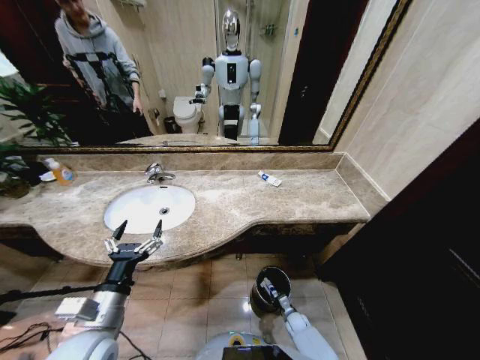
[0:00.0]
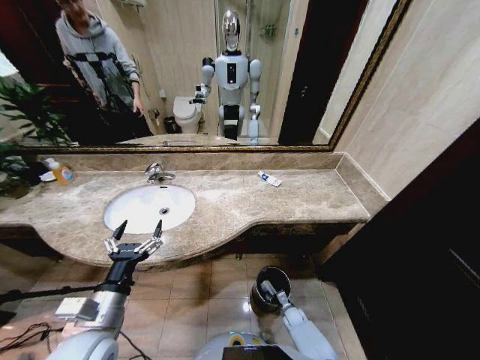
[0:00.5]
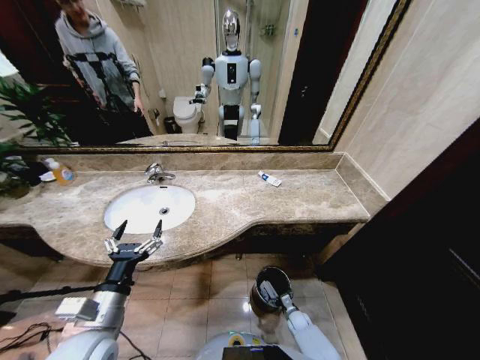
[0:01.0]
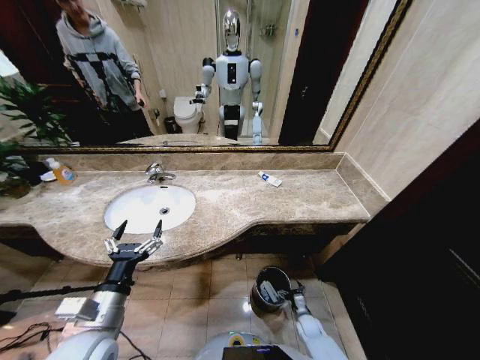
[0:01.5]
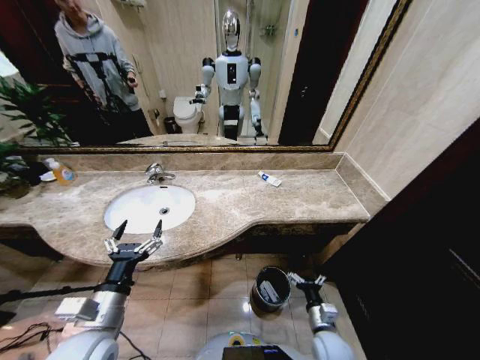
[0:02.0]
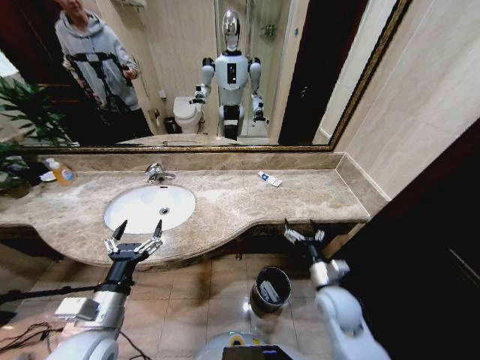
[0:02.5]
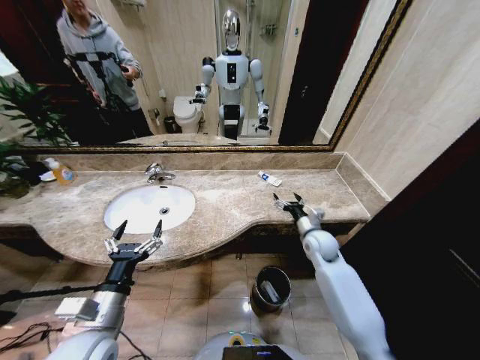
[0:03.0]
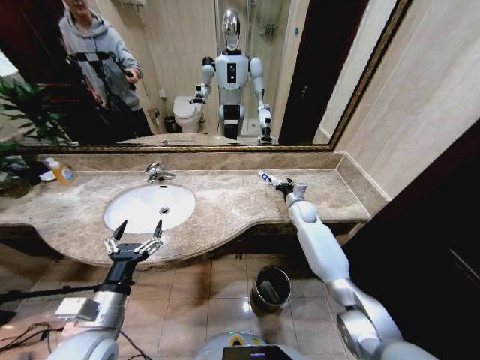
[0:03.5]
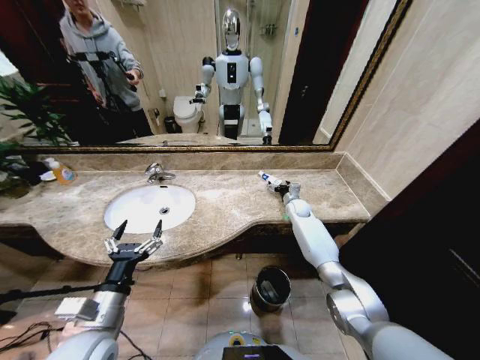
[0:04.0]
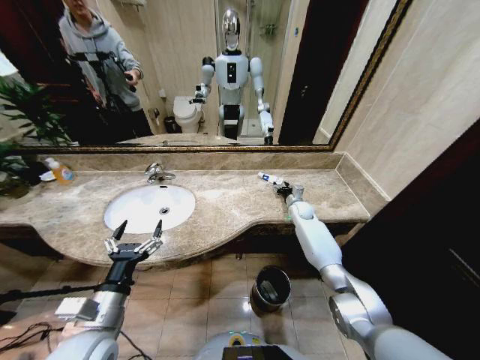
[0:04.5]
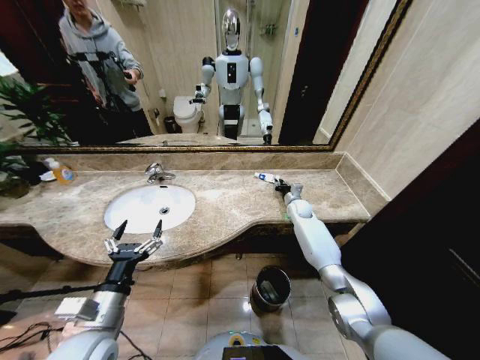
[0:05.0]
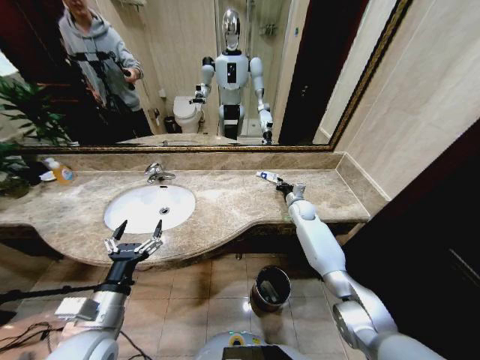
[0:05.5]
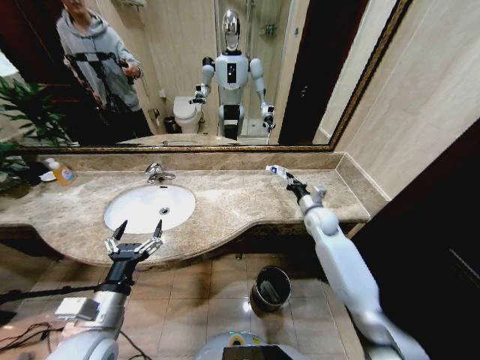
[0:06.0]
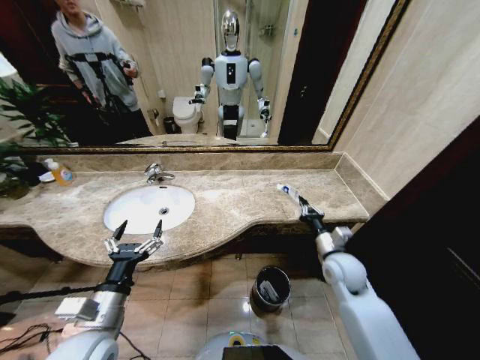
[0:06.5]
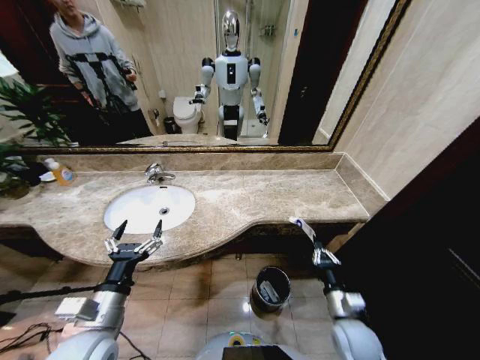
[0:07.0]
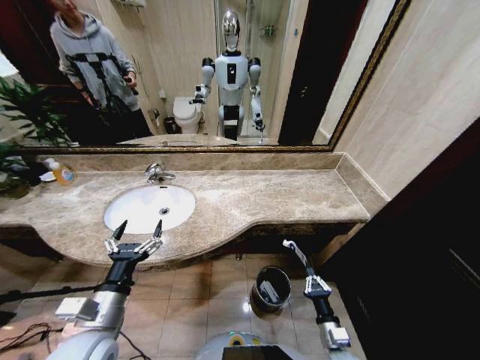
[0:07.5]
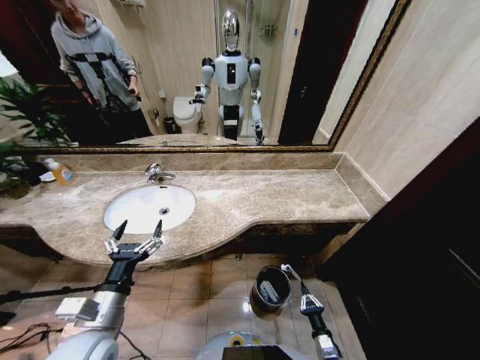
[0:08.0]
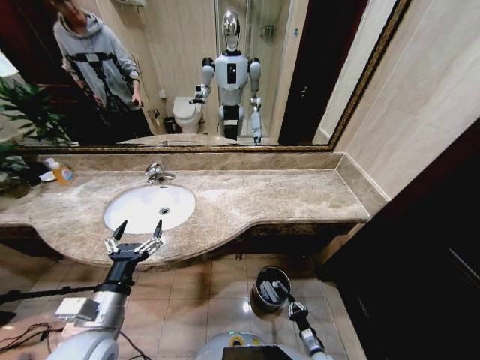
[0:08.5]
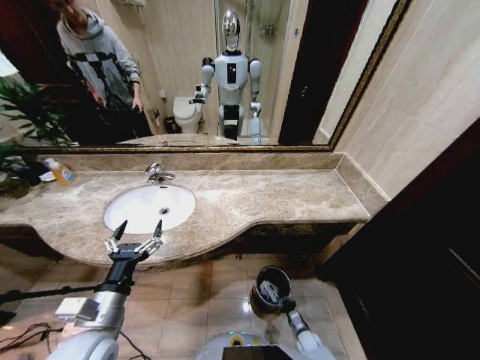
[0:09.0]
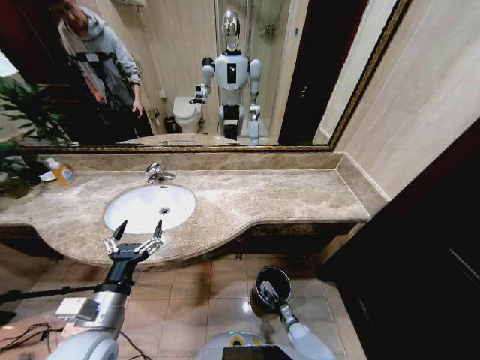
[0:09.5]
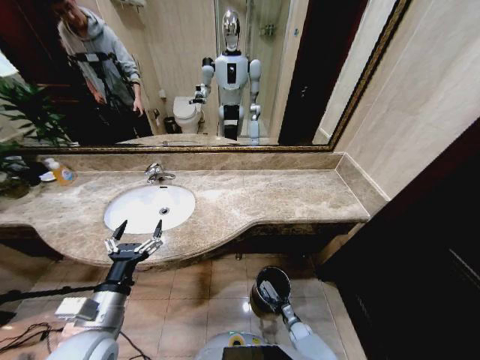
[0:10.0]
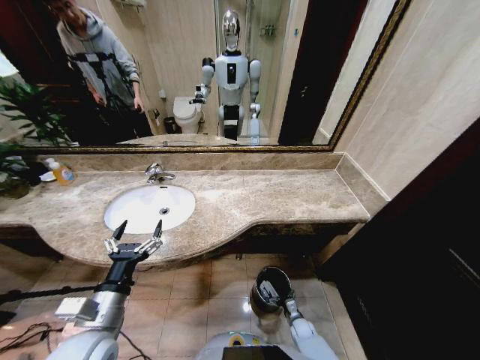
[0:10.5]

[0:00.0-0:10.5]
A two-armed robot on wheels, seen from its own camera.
Task of the whole recording: Pick up the trash from the sink and place it in the trash bin.
0:00.0 to 0:02.0: The right gripper travels upward by approximately 25 cm, and opens its fingers.
0:02.0 to 0:04.0: The right gripper travels forward by approximately 40 cm.
0:04.0 to 0:06.5: The right gripper heads backward, covering about 30 cm, and closes its fingers.
0:06.5 to 0:08.5: The right gripper shifts some 40 cm downward and backward.
0:08.5 to 0:10.5: The right gripper travels forward by about 10 cm, and opens up.

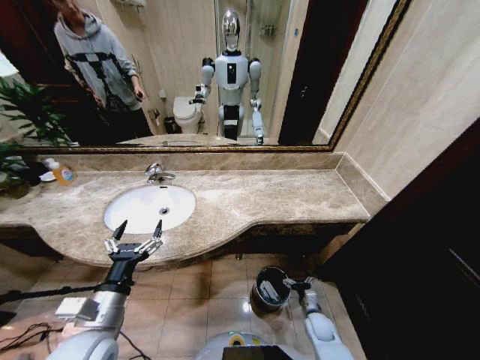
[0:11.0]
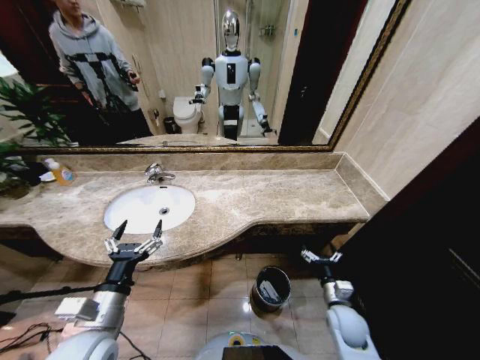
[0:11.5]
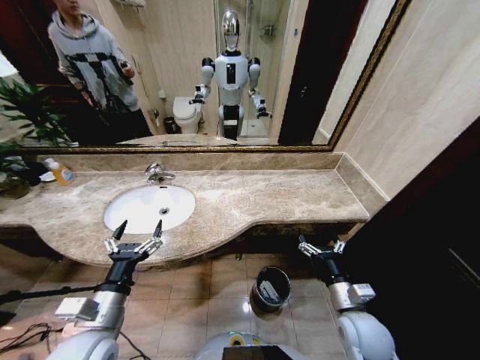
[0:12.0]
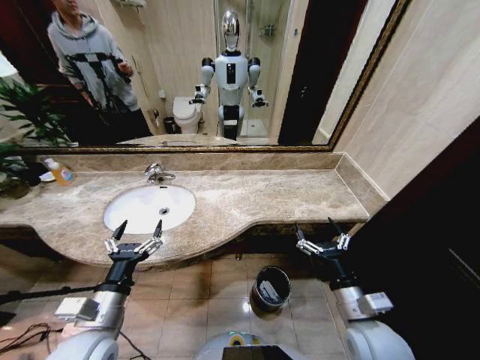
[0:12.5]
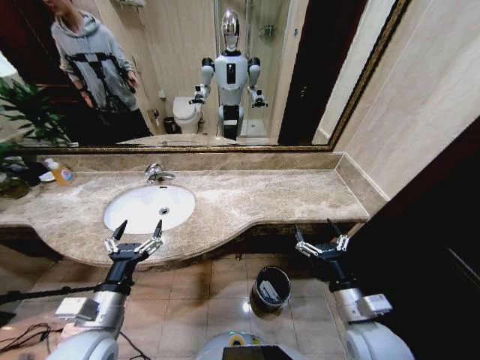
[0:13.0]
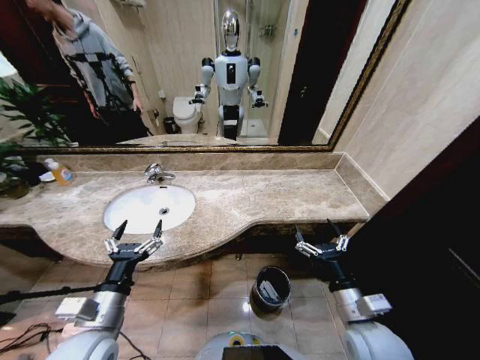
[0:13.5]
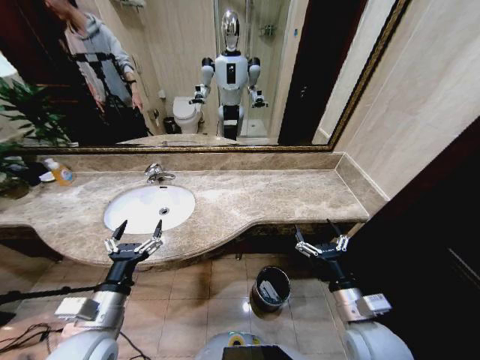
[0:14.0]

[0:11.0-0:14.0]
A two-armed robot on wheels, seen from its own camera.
Task of the whole recording: Pick up the trash from the sink and place it in the trash bin.
0:11.0 to 0:12.5: The right gripper shifts approximately 30 cm upward.
0:12.5 to 0:14.0: Neither gripper changes place.

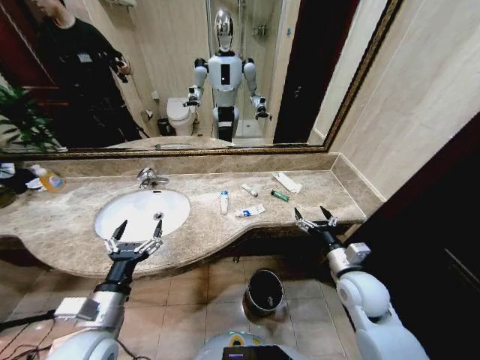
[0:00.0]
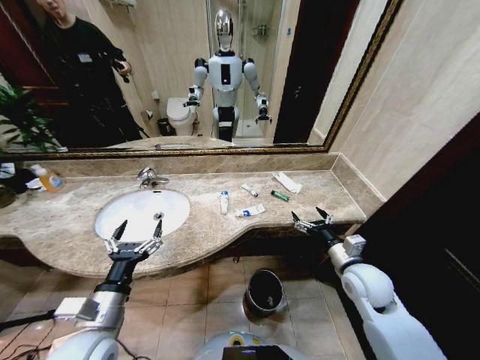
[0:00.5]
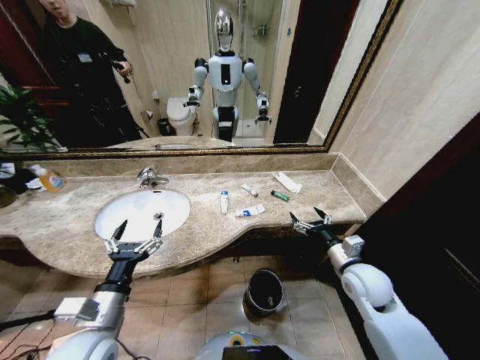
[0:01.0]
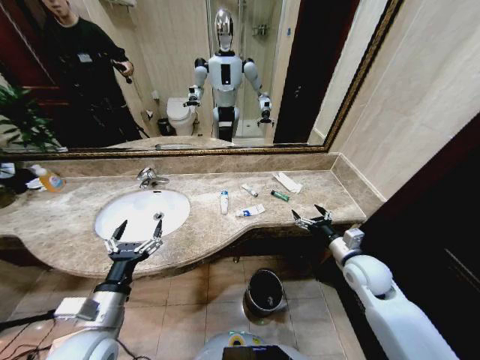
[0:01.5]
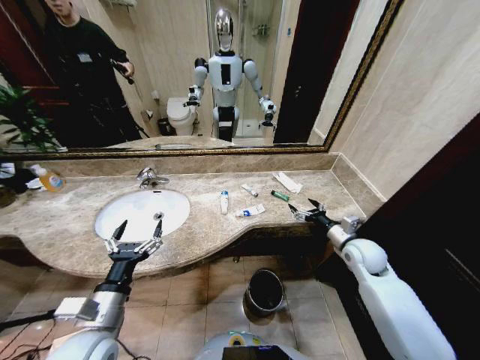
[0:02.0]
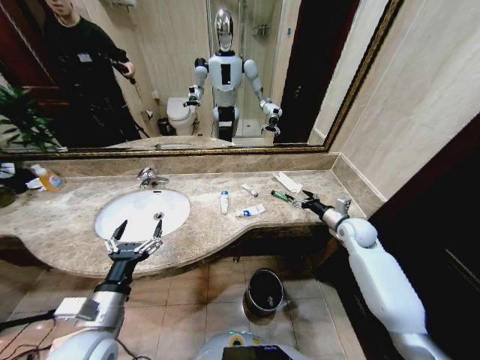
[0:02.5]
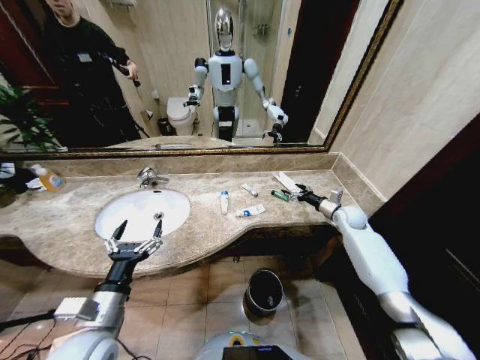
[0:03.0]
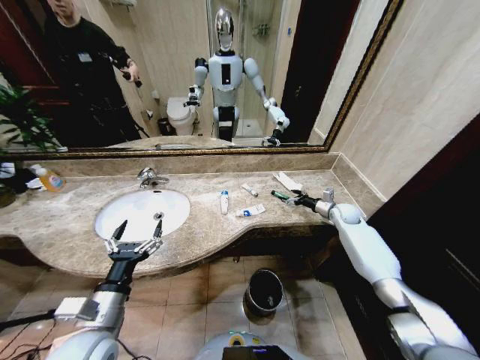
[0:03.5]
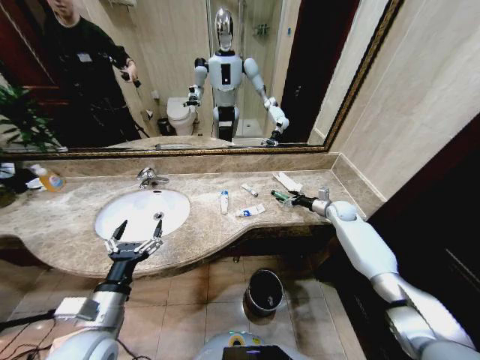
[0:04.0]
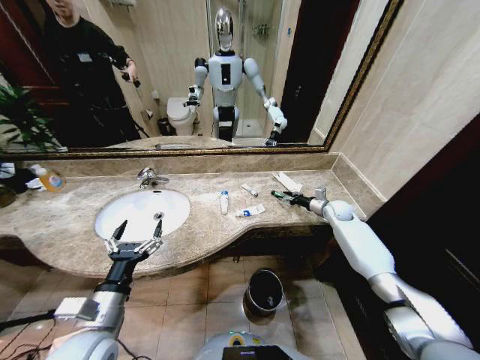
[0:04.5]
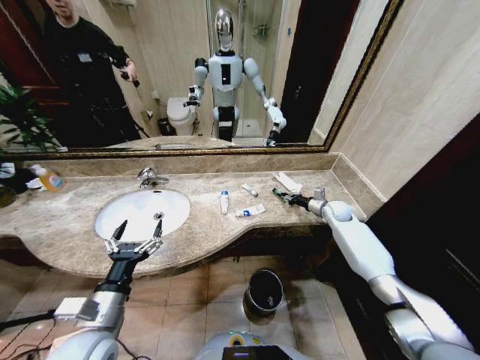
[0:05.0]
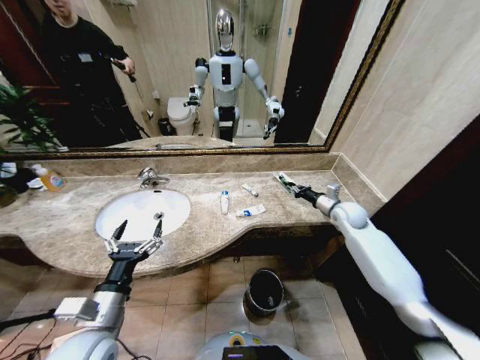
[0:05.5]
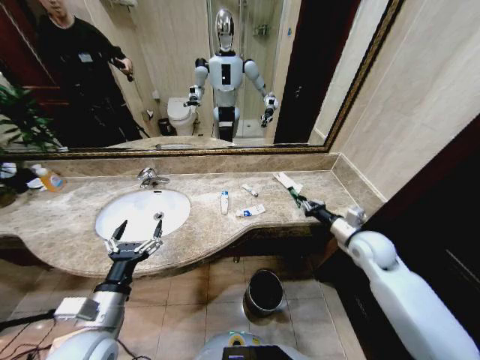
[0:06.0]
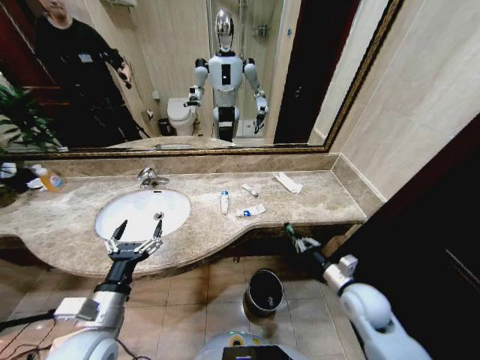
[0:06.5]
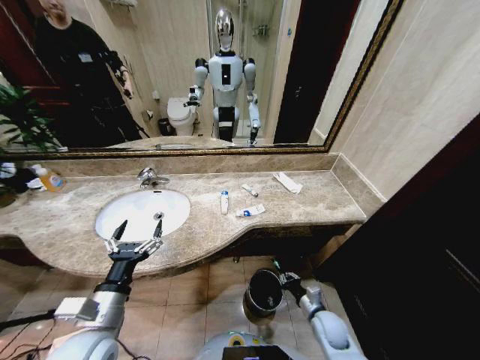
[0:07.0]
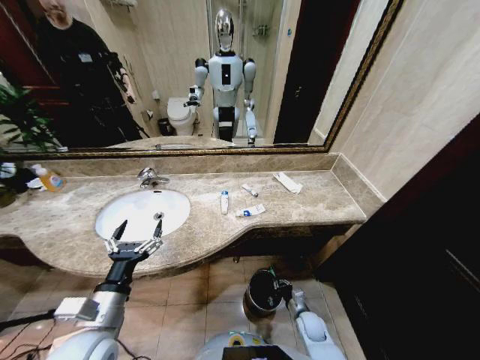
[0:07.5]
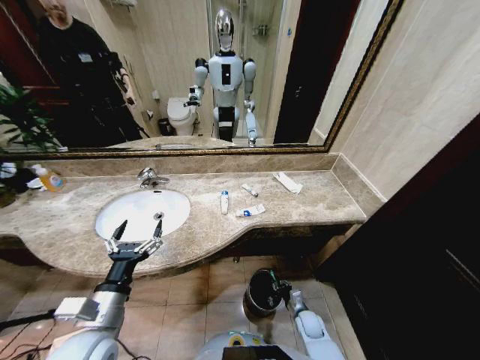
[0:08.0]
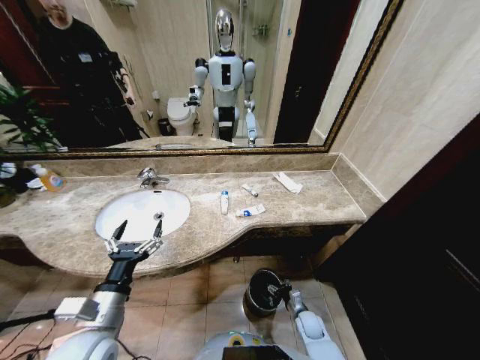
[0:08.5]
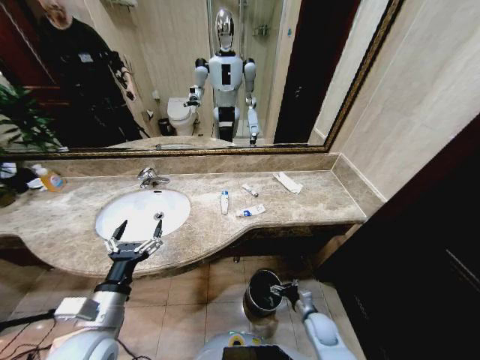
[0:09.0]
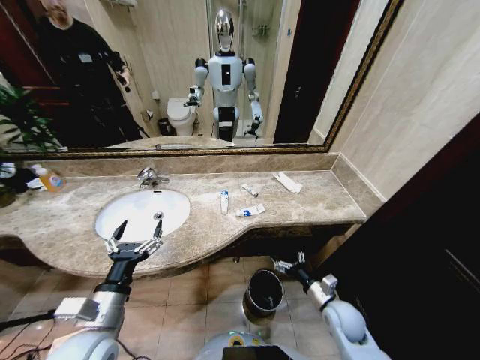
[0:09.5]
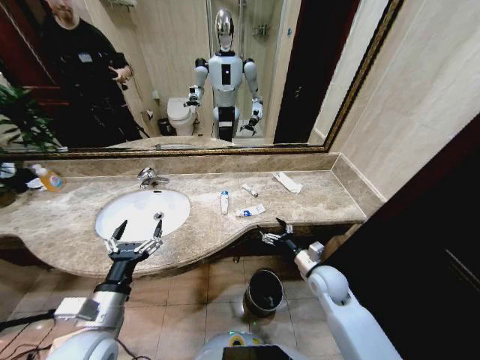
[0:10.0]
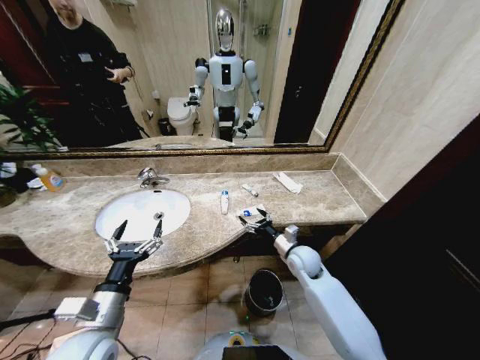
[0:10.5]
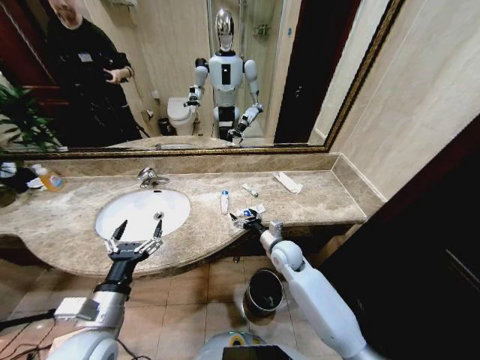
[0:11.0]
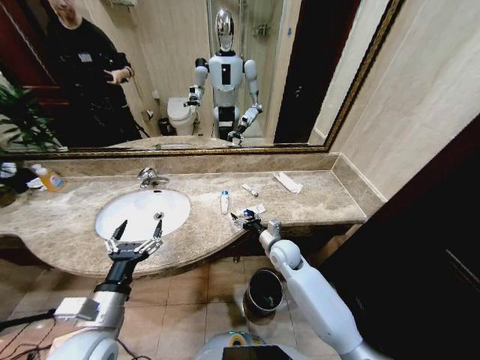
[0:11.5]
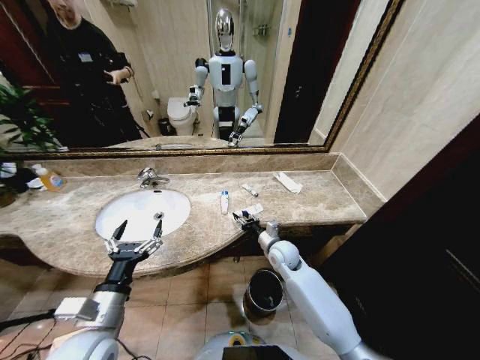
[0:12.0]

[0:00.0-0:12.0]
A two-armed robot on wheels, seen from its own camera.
Task of the whole recording: Pick up the trash from the sink and place it in the trash bin.
0:02.0 to 0:04.0: The right gripper heads forward, covering some 20 cm.
0:04.0 to 0:06.0: The right gripper goes about 20 cm backward, and closes up.
0:06.0 to 0:08.0: The right gripper goes approximately 35 cm downward.
0:08.0 to 0:10.0: The right gripper shifts roughly 25 cm upward, and opens up.
0:10.0 to 0:12.0: The right gripper goes some 15 cm to the left and forward, and closes its fingers.
